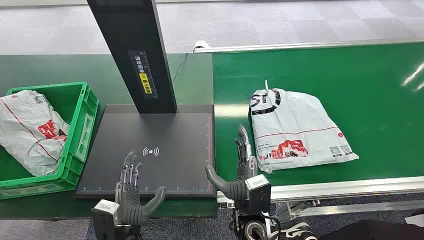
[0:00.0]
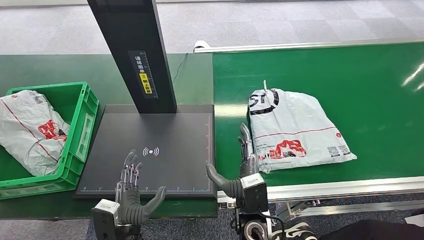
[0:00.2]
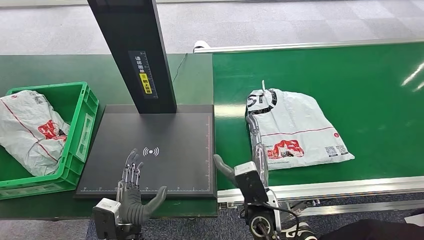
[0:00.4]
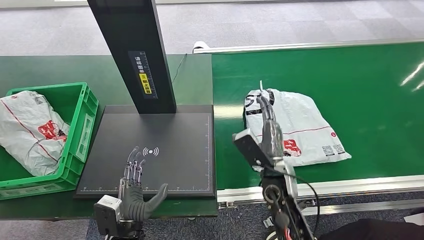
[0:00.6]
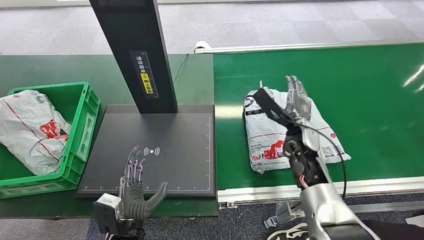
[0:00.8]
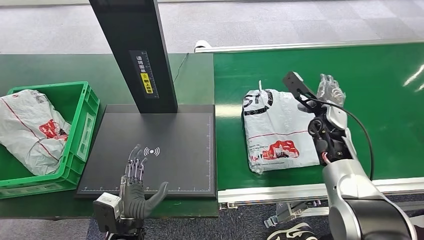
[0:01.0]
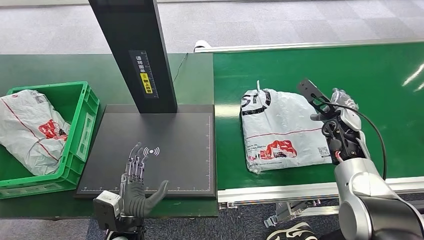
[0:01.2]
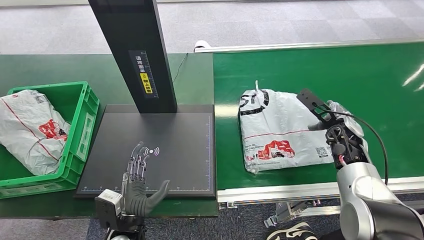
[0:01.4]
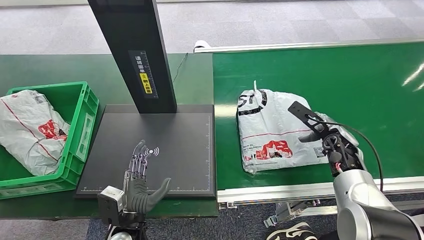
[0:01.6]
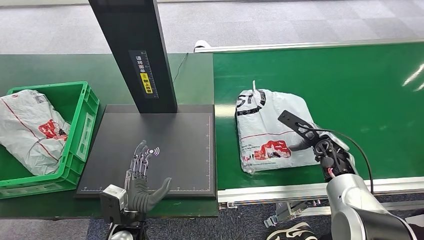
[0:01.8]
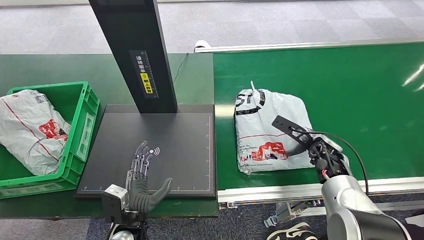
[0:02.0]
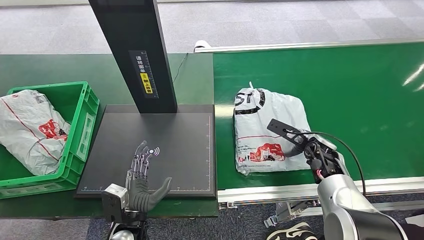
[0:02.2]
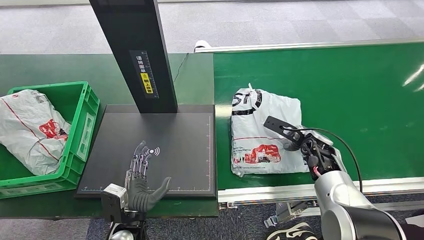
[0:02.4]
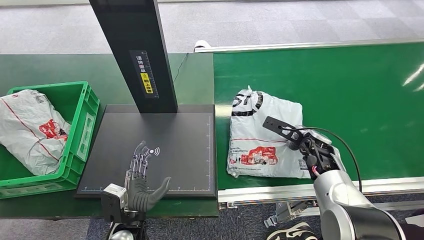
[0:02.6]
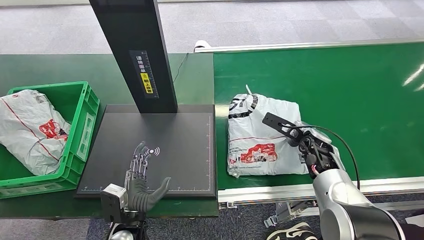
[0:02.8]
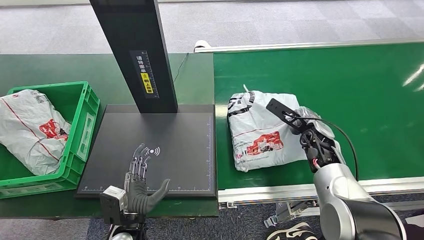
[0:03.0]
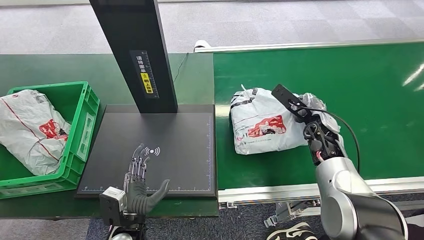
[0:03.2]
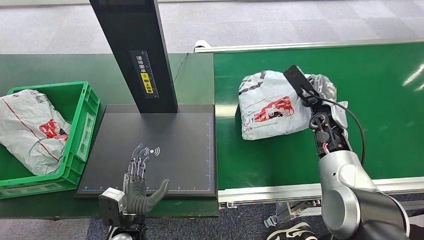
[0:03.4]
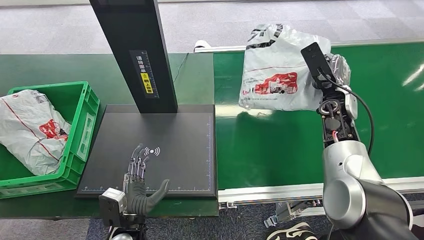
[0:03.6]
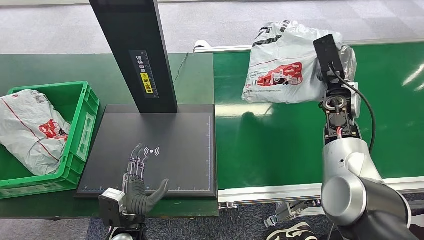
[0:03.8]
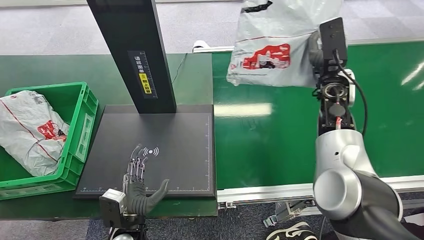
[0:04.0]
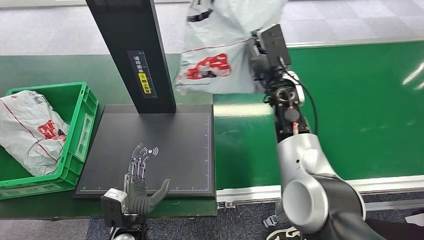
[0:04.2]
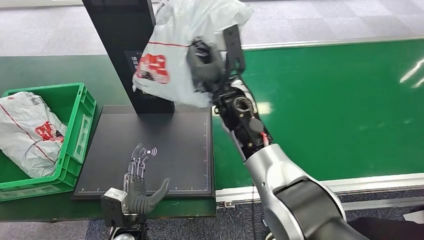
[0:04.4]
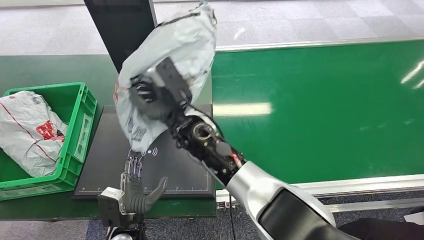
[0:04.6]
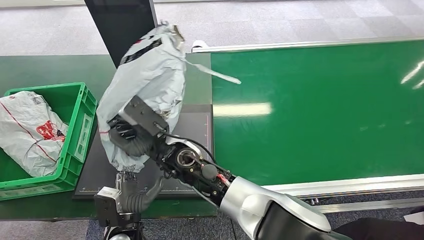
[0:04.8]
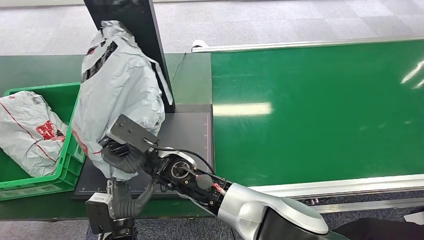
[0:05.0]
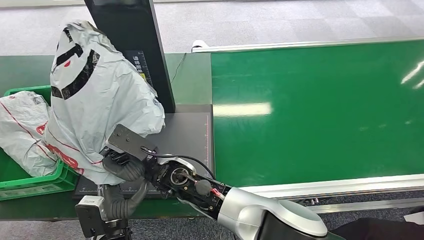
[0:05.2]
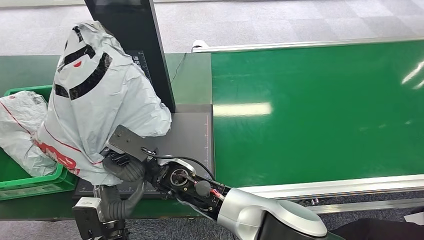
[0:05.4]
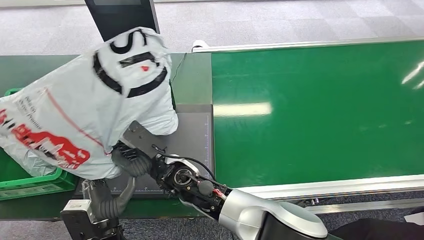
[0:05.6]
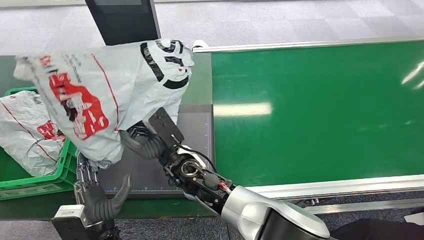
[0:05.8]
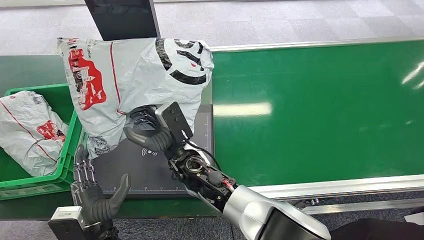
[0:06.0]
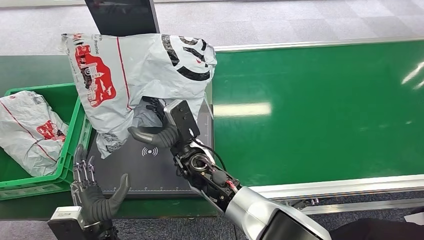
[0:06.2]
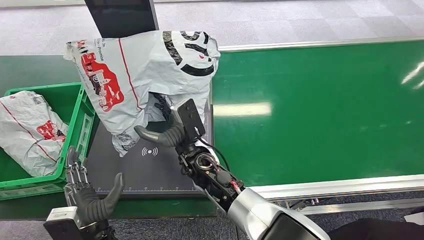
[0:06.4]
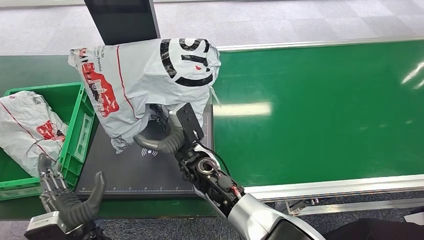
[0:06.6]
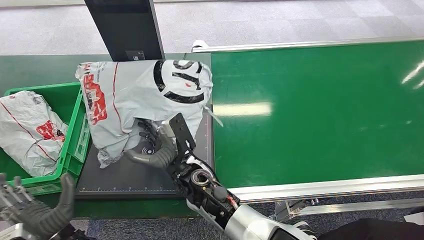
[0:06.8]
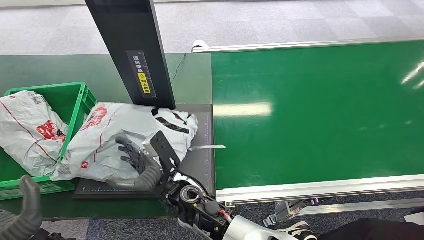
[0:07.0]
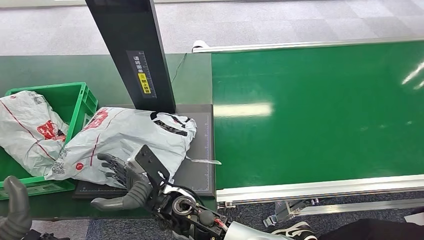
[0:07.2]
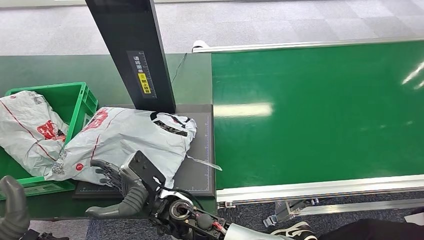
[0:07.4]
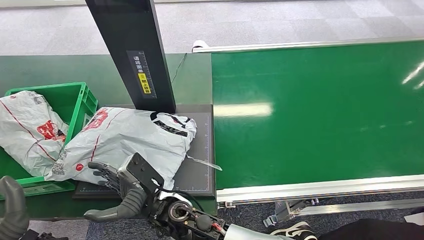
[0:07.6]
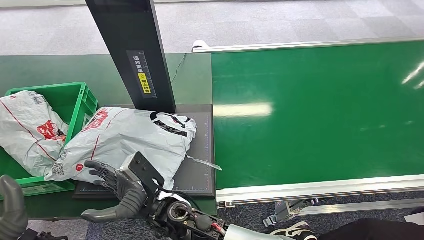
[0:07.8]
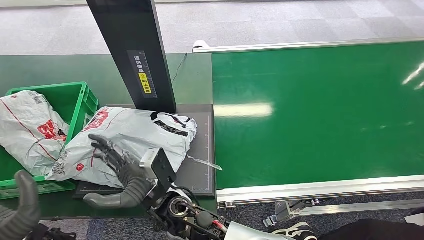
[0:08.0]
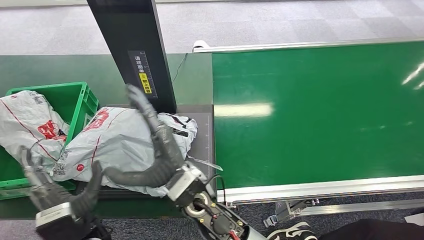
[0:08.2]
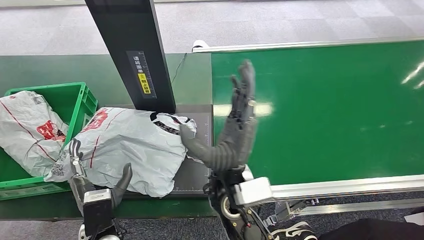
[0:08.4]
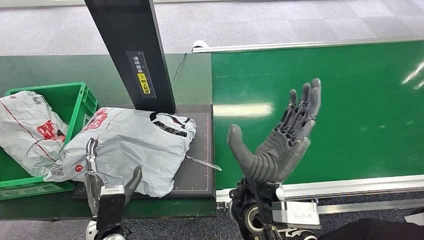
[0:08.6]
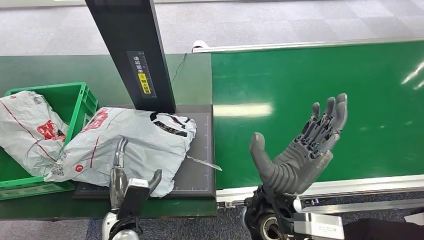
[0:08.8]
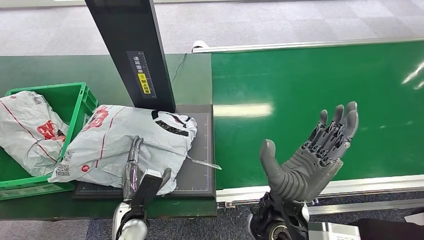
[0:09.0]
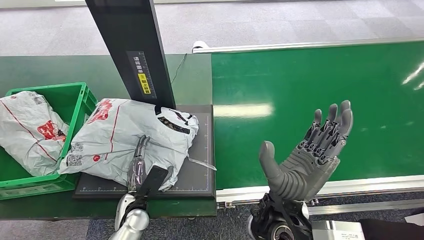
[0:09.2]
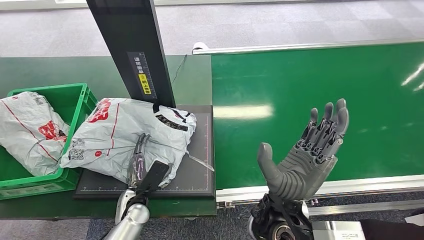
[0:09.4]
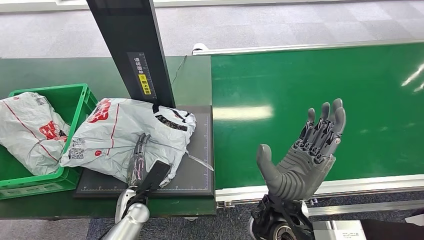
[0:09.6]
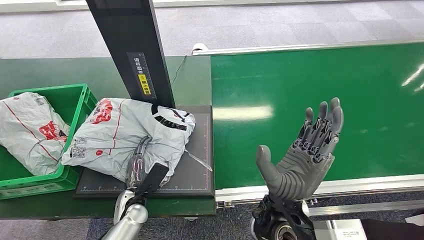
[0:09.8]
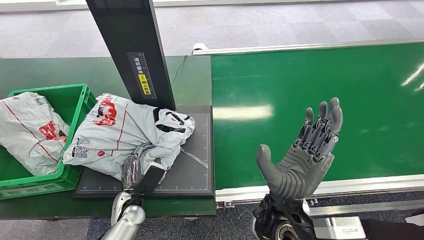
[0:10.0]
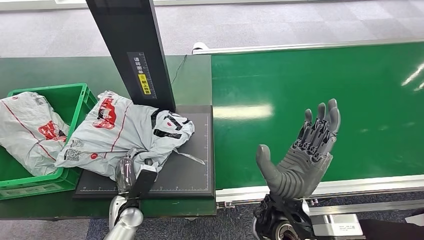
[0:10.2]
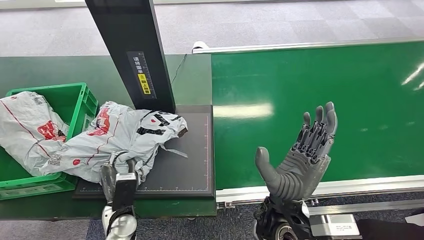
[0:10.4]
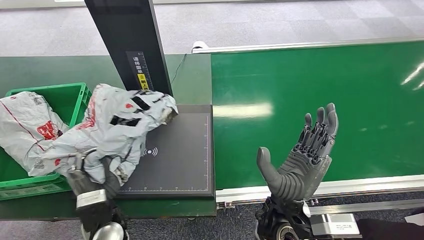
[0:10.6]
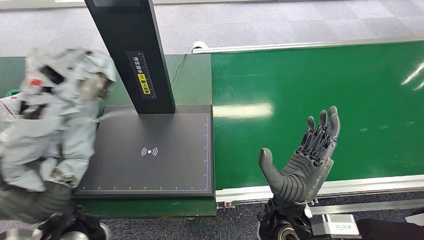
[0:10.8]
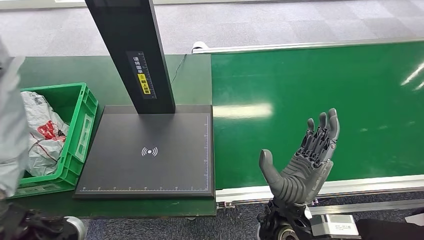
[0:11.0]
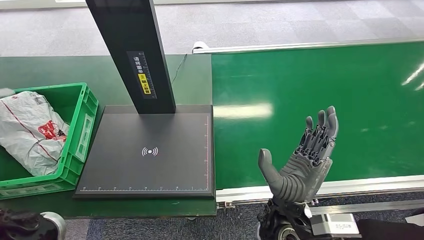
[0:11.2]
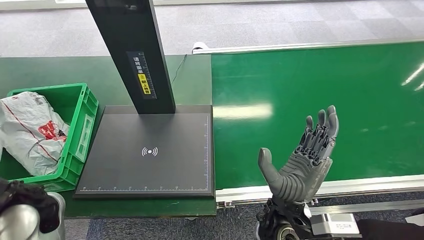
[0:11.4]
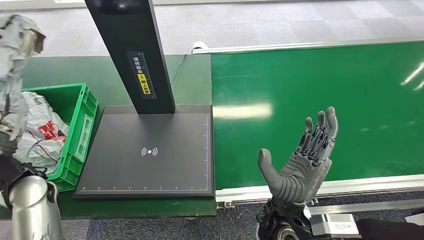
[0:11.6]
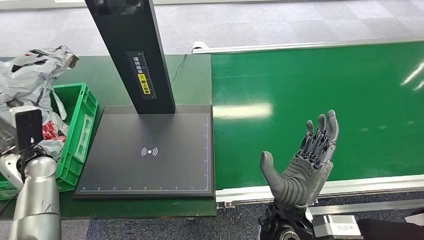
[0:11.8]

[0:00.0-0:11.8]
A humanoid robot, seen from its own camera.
Task of the whole recording: Weigh the package on the weighing device and place it in the left basket.
Step, 0:00.0 to 0:04.0: Pick up the package from the conveyor belt.
Step, 0:04.2 to 0:08.6: Place the package onto the inbound machine.
Step, 0:08.8 to 0:11.0: Pick up the package from the inbound machine.
0:01.4 to 0:03.0: The right hand goes about 5 cm to the left.
0:07.4 to 0:08.8: The right hand moves to the right and upward, approximately 15 cm, while the left hand travels downward and to the right by some 15 cm.

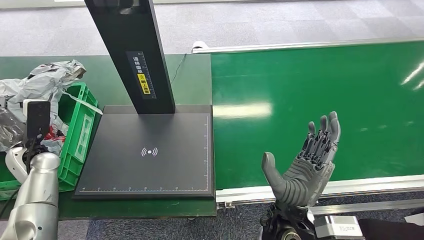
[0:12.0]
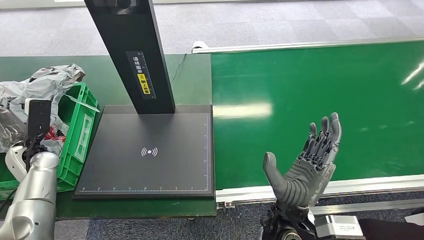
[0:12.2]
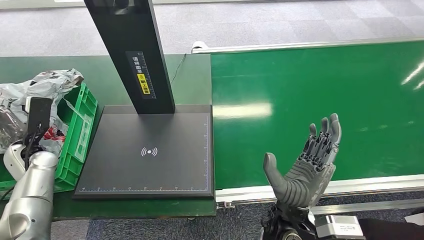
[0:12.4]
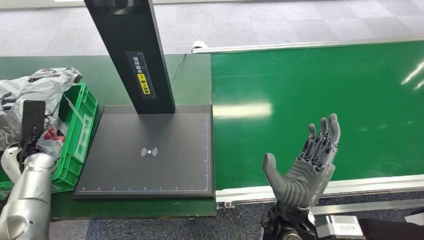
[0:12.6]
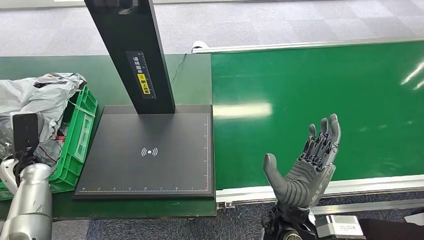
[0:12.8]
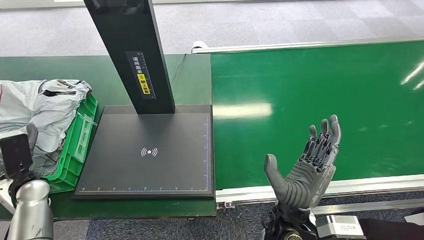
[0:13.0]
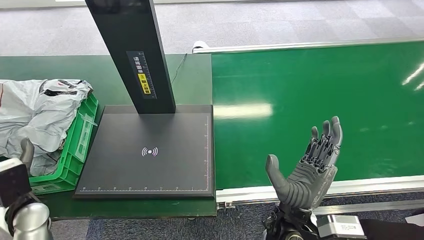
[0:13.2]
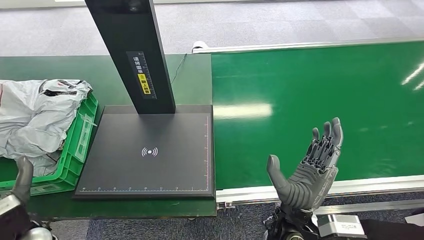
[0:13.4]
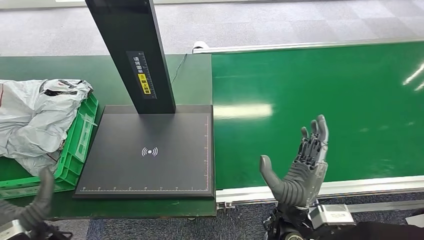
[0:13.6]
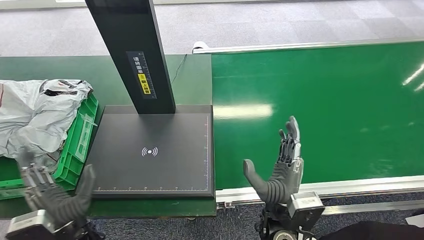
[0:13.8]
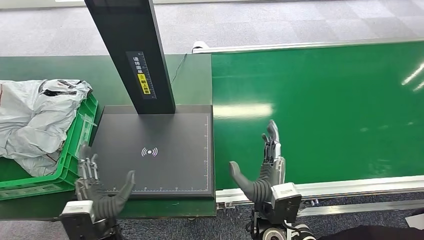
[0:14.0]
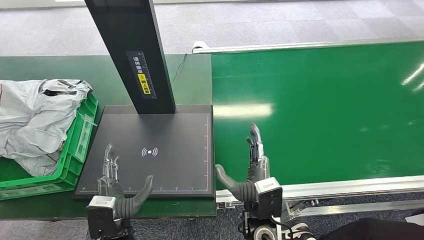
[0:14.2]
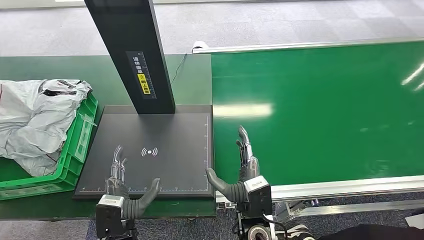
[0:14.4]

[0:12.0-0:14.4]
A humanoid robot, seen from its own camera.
Task of the whole recording: Weigh the package on the weighing device and place it in the left basket.
Step, 0:12.0 to 0:14.2: Place the package into the parcel locker.
0:12.0 to 0:13.2: The left hand moves backward, approximately 10 cm.
0:13.2 to 0:14.4: The left hand moves to the right and backward, approximately 25 cm; the right hand goes approximately 5 cm downward.
